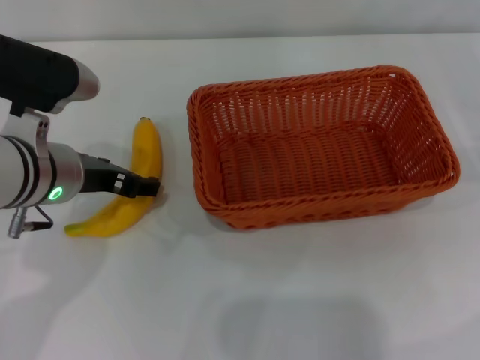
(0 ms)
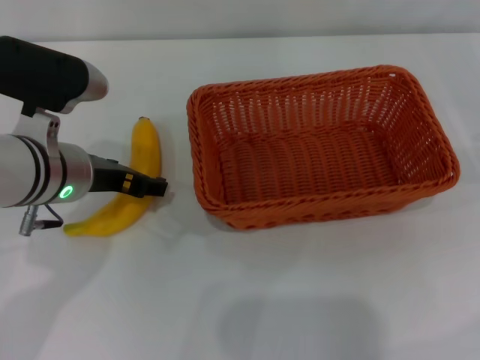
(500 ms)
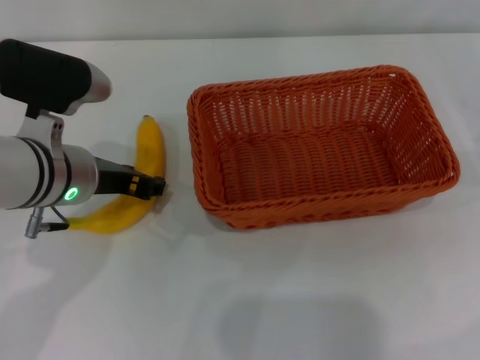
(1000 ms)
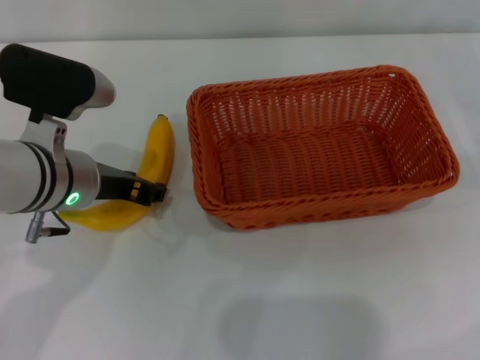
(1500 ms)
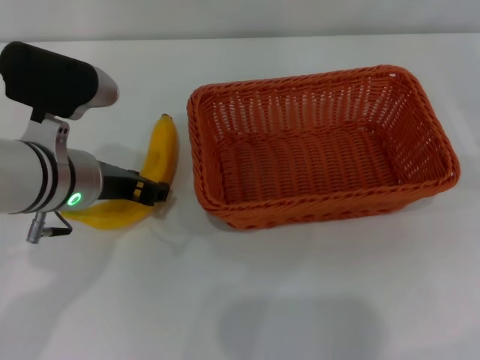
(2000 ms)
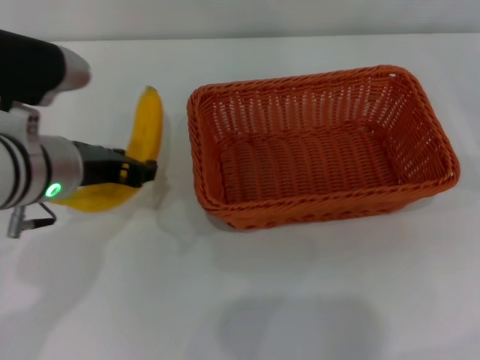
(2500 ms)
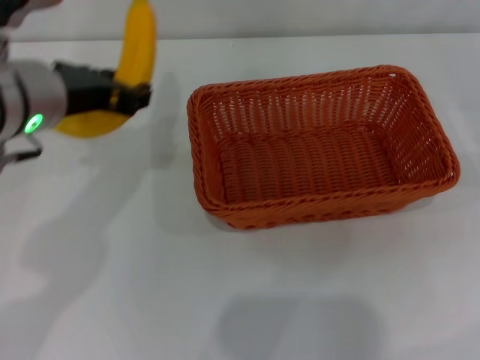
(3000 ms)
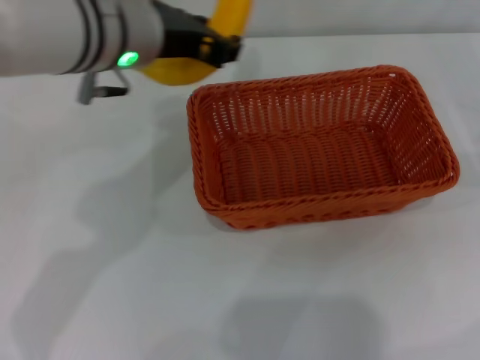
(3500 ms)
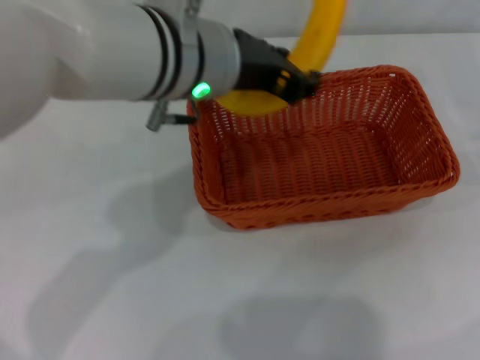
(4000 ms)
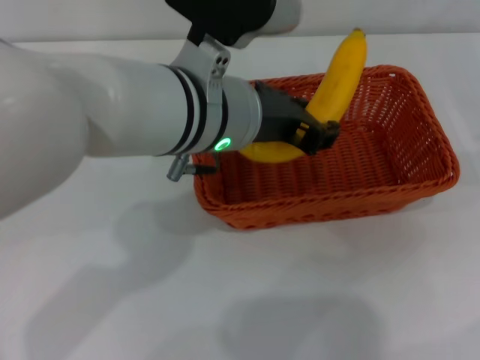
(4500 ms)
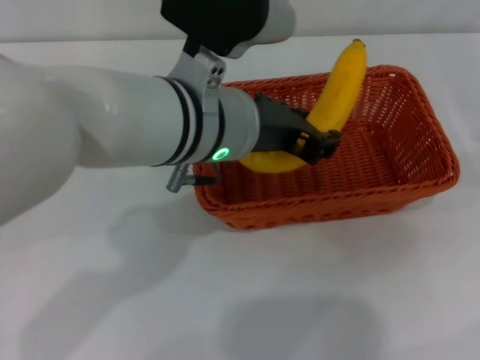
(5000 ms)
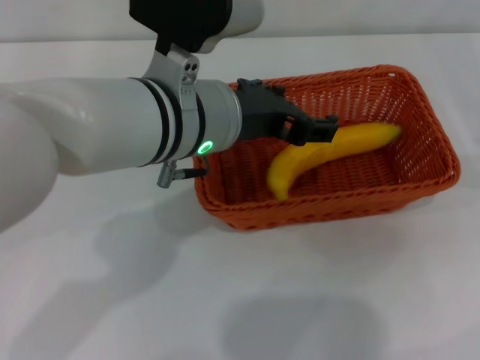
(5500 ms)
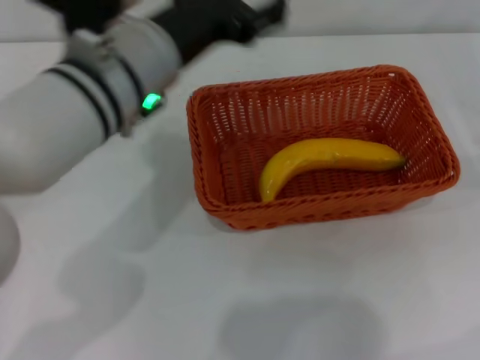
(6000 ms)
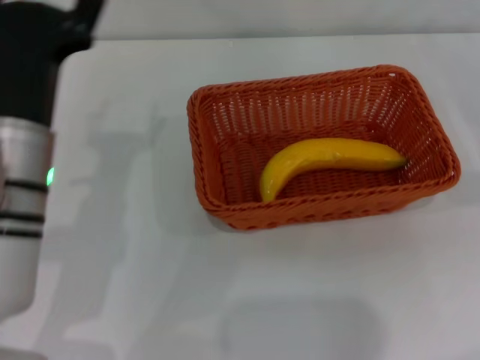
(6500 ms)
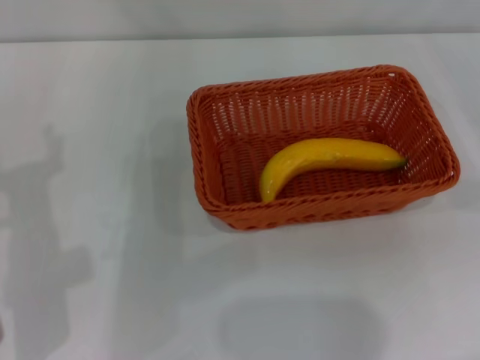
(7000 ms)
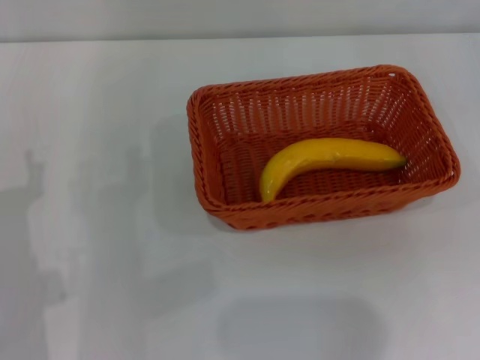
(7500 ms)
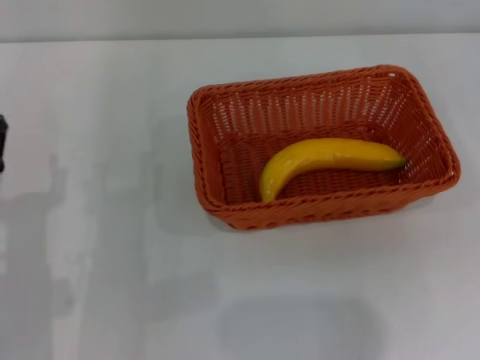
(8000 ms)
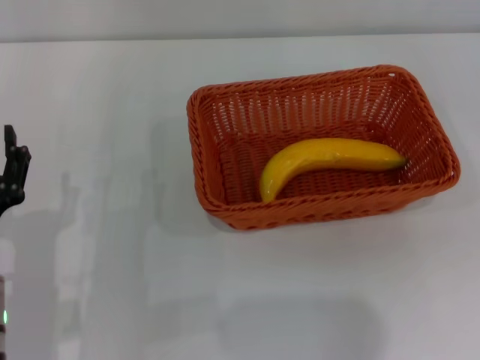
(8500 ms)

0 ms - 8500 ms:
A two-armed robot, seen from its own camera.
Step, 0 ms - 2500 ms: Pick up the banana with the left gripper.
Step, 3000 ms - 5500 ms: Place the banana into the light basket with the left gripper.
0 ms - 2000 ms: The left gripper closes up.
2000 ms - 4000 ms: The left gripper moves to the right and upward, about 15 cm.
4000 ms - 6500 ms: The left gripper moves to the left, downward and backward, some 15 cm, and opens its fingers.
6500 ms - 8500 ms: The left gripper shifts about 10 cm backward and downward.

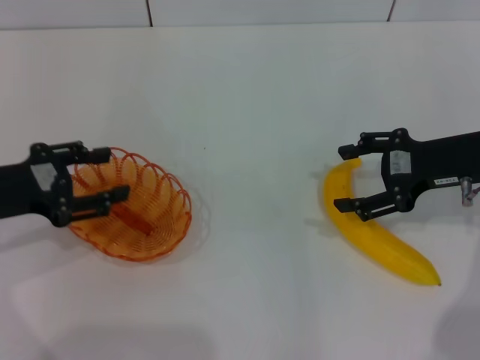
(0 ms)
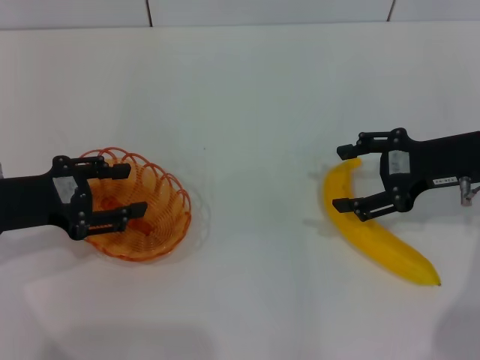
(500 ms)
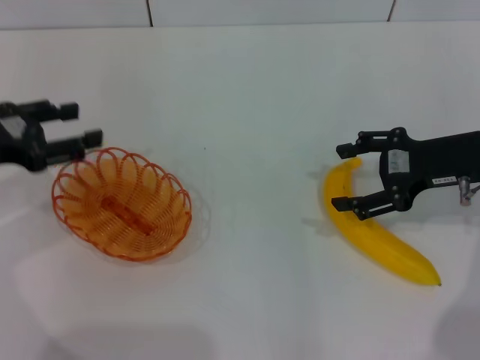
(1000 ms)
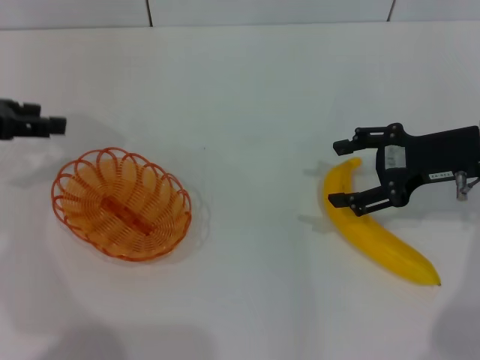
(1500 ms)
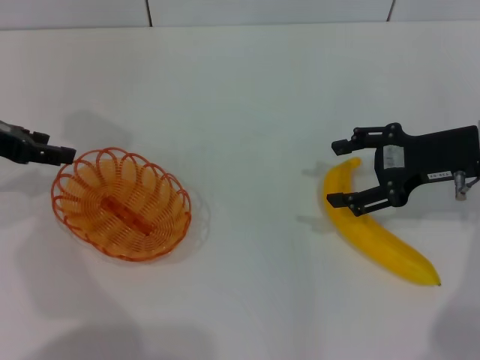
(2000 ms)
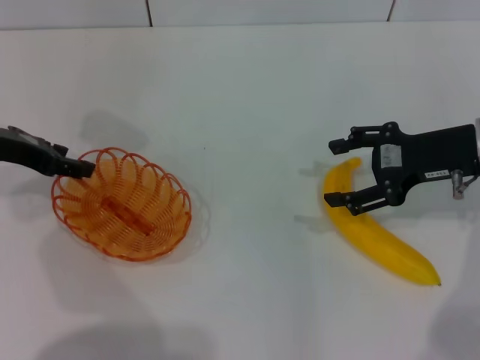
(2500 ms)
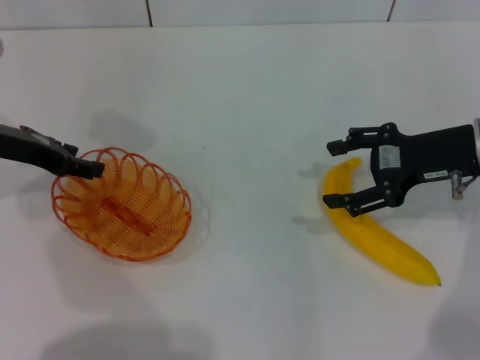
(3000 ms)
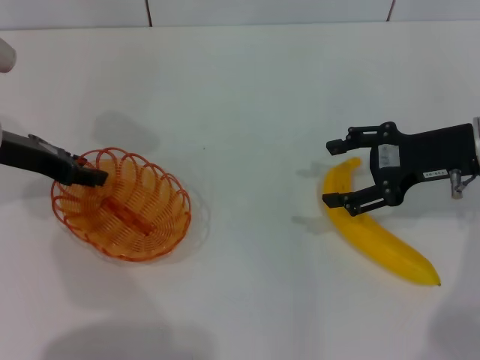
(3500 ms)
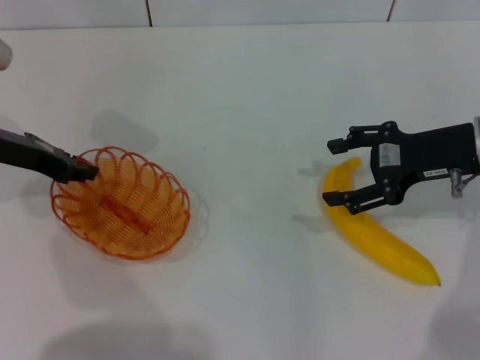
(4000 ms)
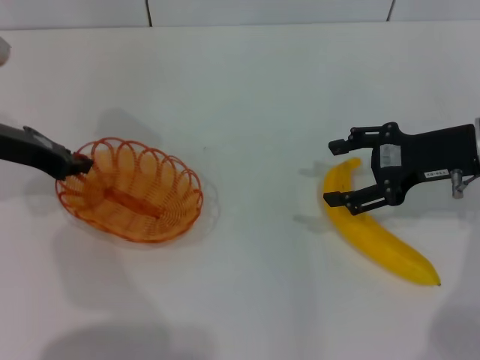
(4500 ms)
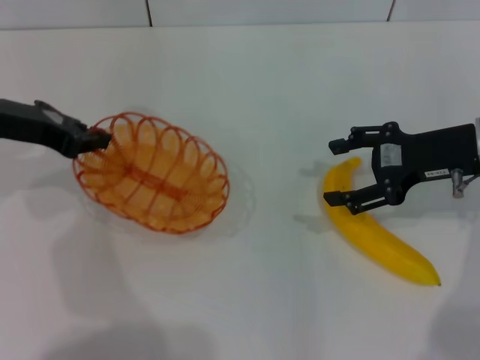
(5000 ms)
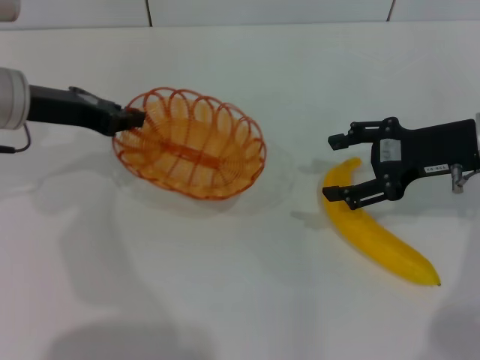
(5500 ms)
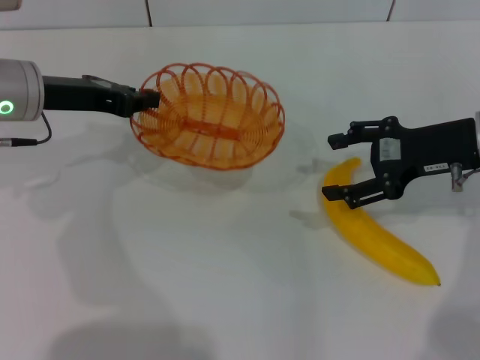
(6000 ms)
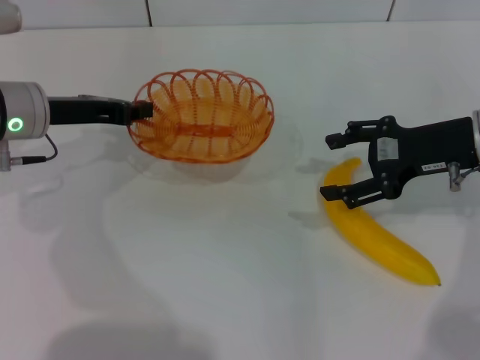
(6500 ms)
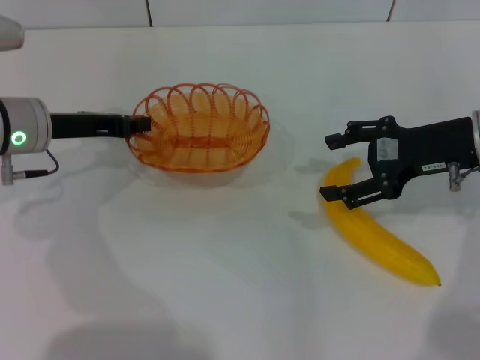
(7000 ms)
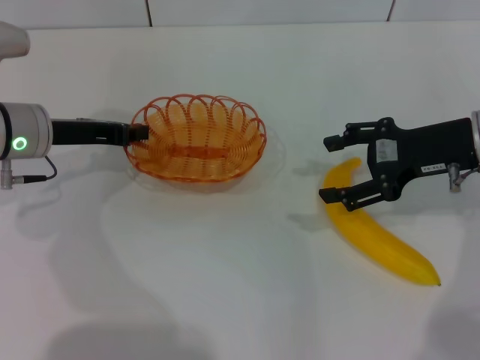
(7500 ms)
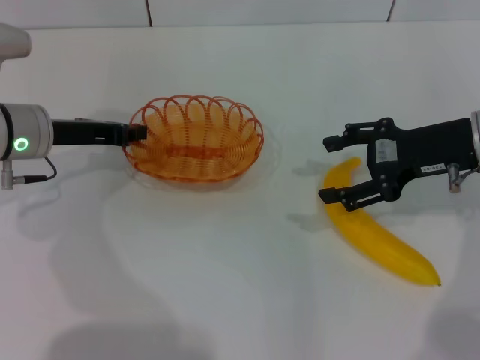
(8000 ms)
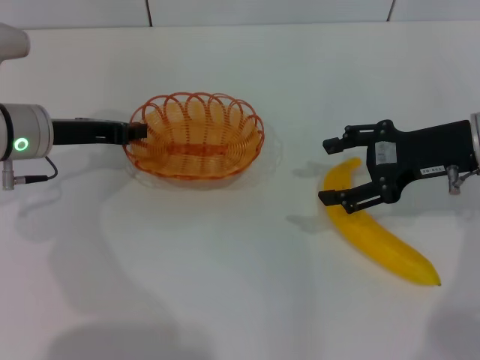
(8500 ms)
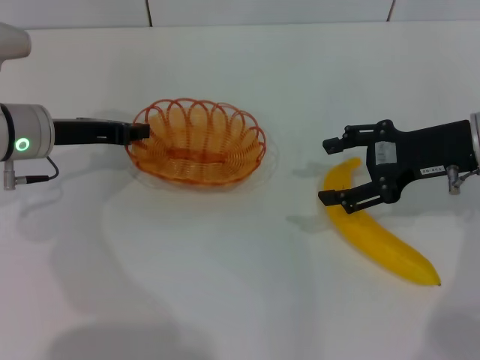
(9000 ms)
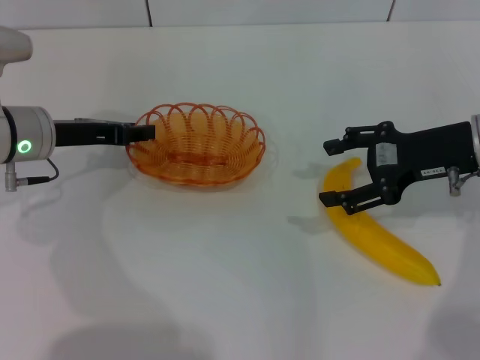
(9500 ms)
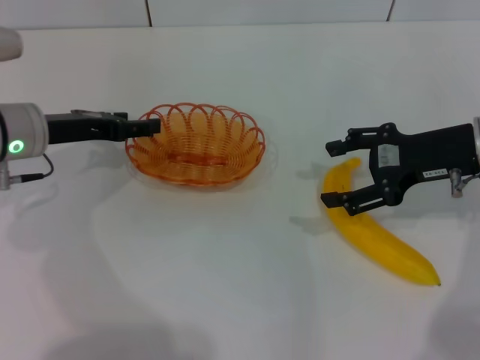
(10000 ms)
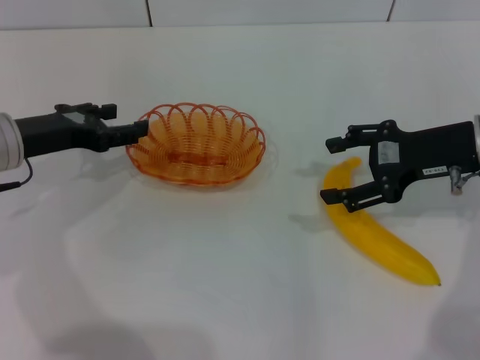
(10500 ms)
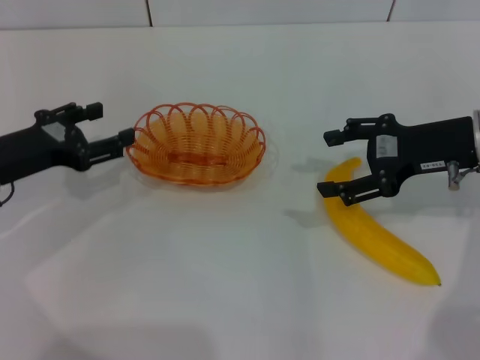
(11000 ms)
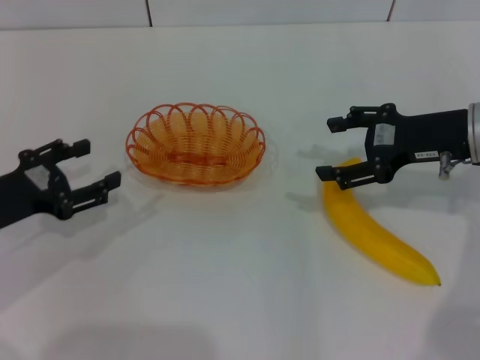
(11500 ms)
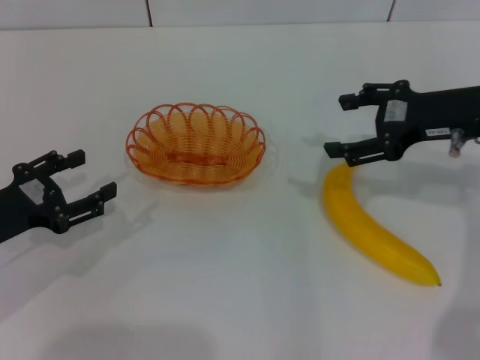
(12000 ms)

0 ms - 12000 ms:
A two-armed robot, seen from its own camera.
Step, 0 ms - 4500 ms: Pick up the basket with the left gripper.
Step, 5000 ms - 11000 ms: Place the basket in the center of view with the left gripper.
0 ms - 2000 ms: The left gripper moves forward and upward, approximately 10 cm.
2000 ms - 4000 ms: The left gripper ends up approximately 5 cm from where it was, and closes.
4000 ms - 6000 ms: The left gripper closes.
6000 ms - 8000 ms: The left gripper ends up about 5 cm from where it was.
8000 ms - 10000 ms: The left gripper opens up.
10000 ms - 12000 ms: The left gripper shifts about 15 cm backward and to the left.

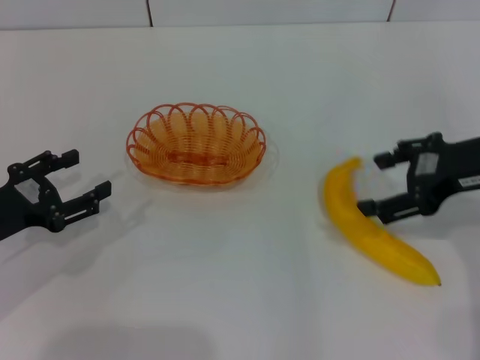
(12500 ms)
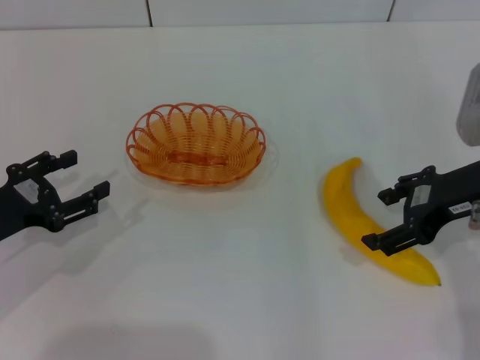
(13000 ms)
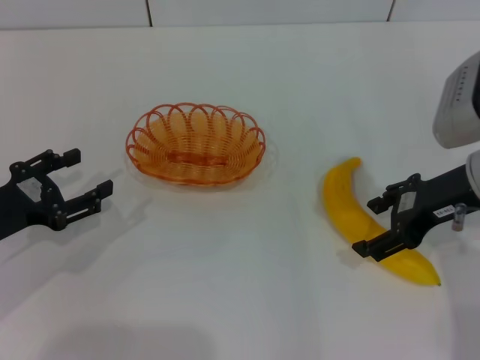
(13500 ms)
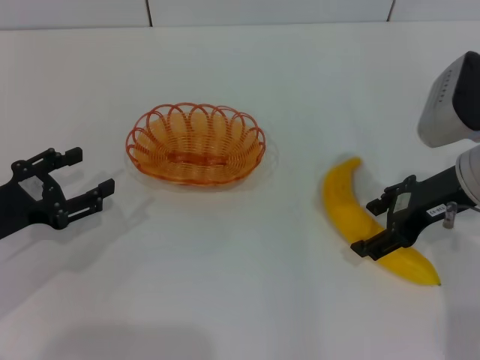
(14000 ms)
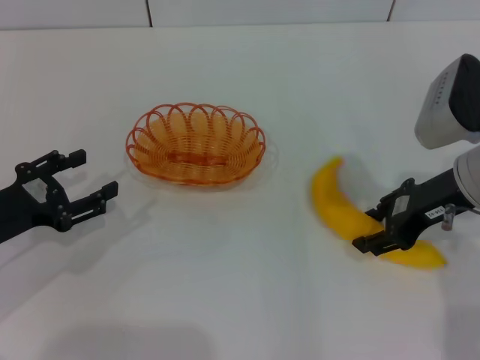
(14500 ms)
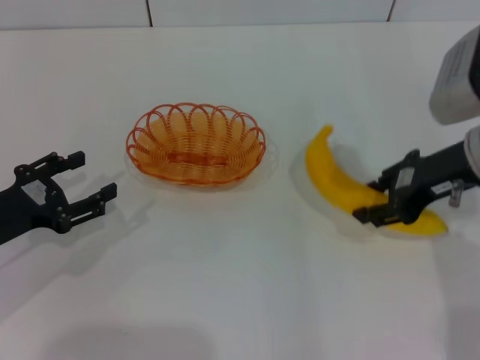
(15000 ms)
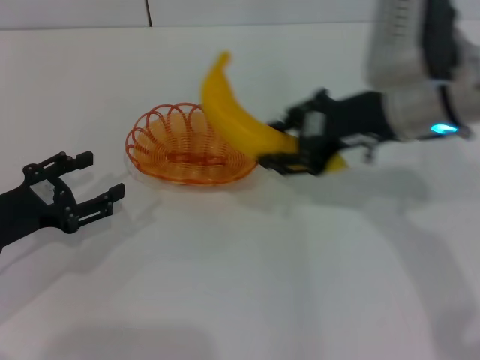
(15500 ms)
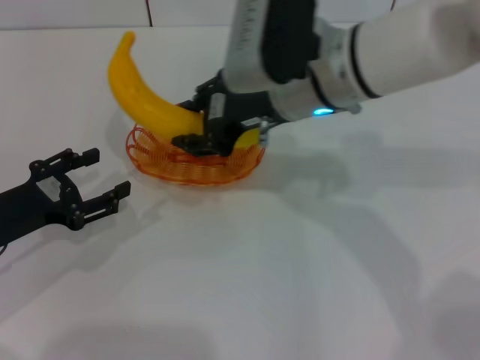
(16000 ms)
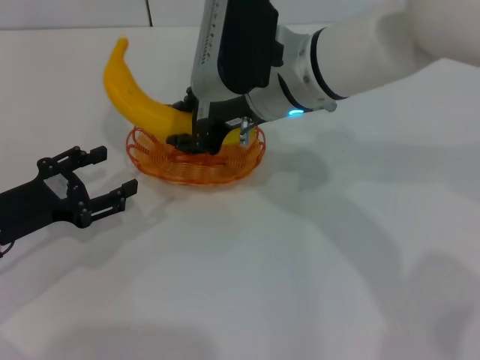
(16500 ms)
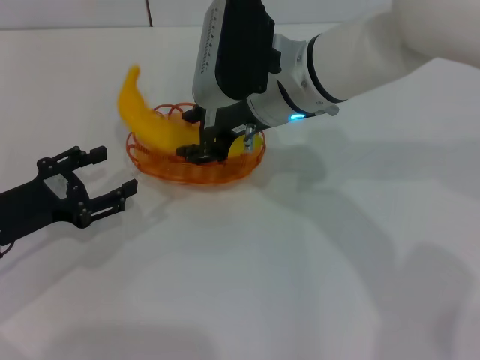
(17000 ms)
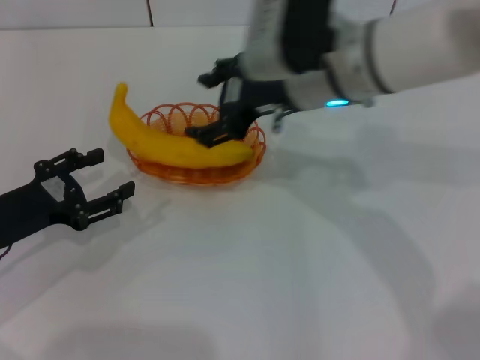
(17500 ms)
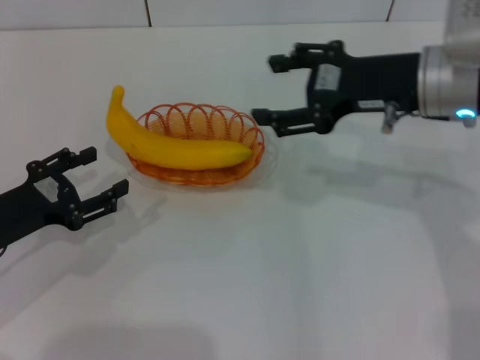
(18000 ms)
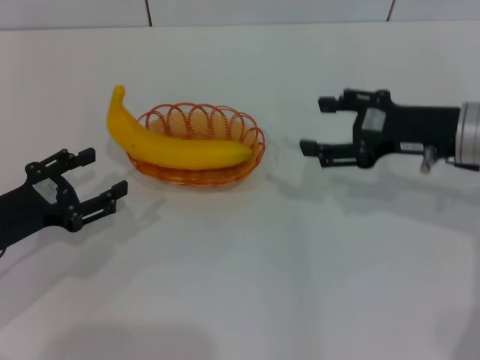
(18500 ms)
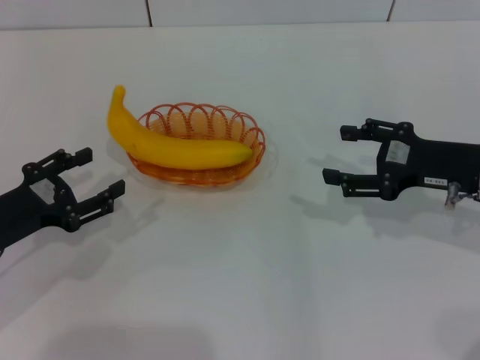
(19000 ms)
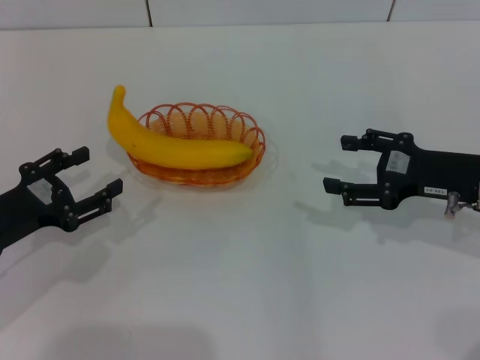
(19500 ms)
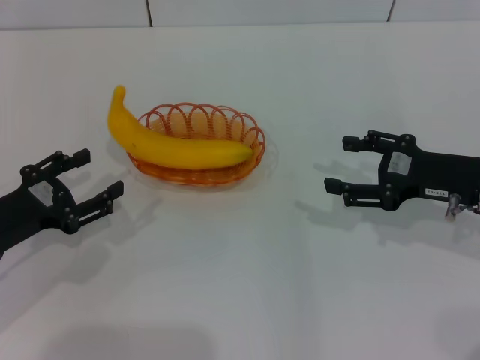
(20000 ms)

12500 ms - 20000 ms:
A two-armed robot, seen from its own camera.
Step, 12500 ms - 14500 ms: Pick up the banana with the right gripper.
Step, 15500 ms - 17500 ms: Place the banana into the basket with the right gripper.
12500 ms - 14500 ms: The right gripper changes place by some 5 cm, and closes up.
14500 ms - 16500 ms: The right gripper is displaced to the left by roughly 20 cm.
16500 ms - 18000 ms: The right gripper travels to the right by about 15 cm, and opens its fingers.
18000 ms - 20000 ms: The right gripper travels downward, to the right and backward by roughly 15 cm.
